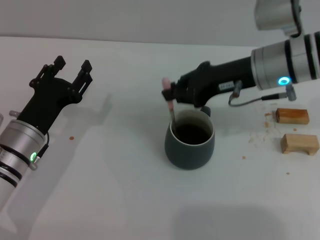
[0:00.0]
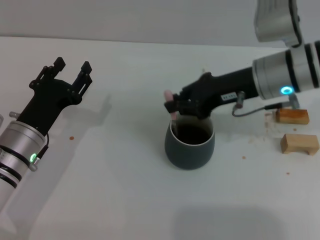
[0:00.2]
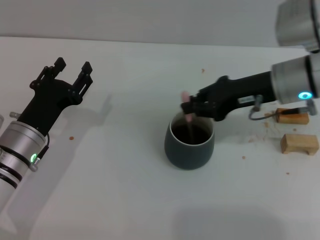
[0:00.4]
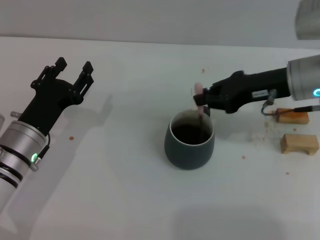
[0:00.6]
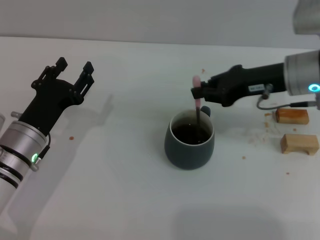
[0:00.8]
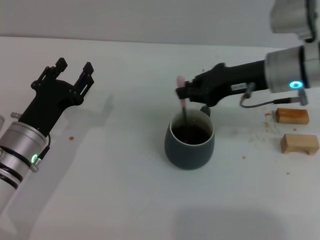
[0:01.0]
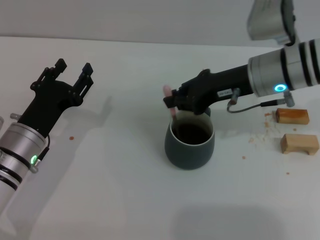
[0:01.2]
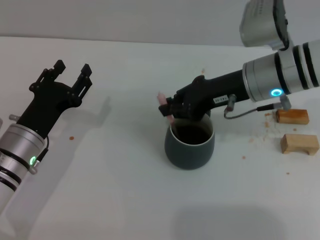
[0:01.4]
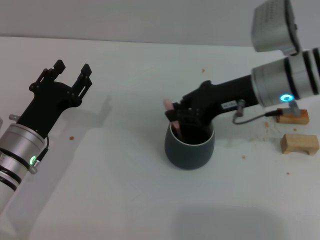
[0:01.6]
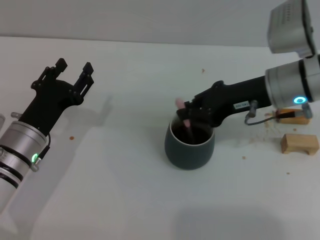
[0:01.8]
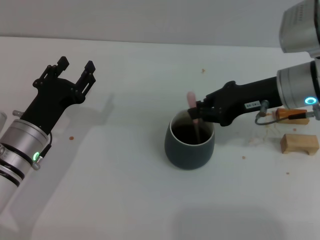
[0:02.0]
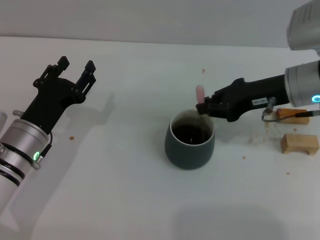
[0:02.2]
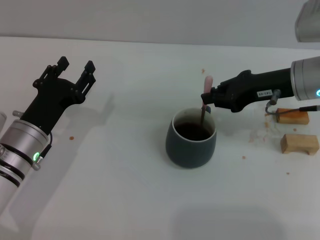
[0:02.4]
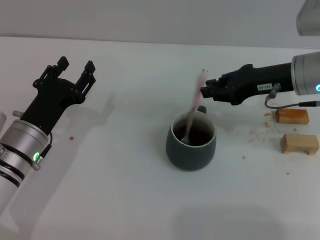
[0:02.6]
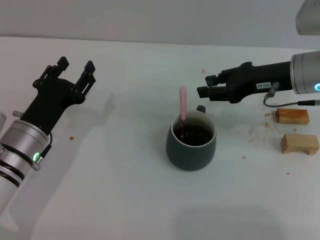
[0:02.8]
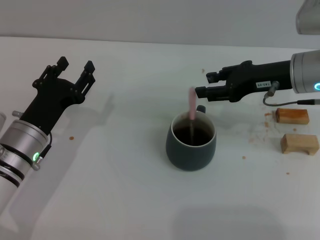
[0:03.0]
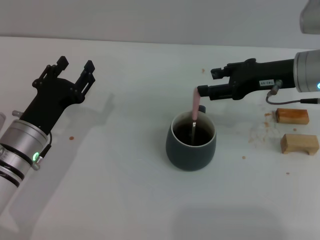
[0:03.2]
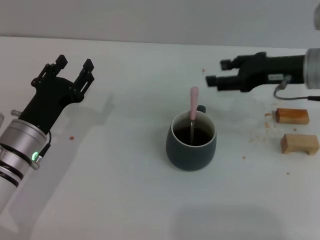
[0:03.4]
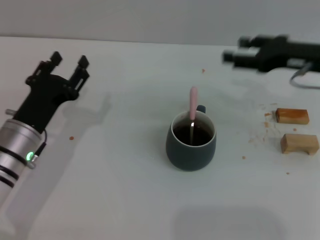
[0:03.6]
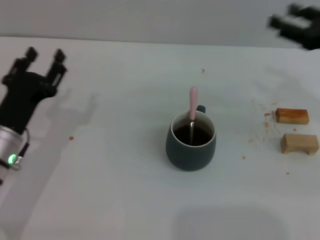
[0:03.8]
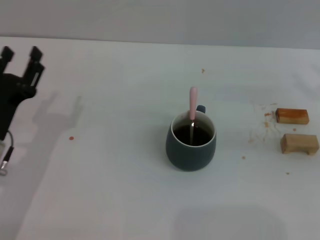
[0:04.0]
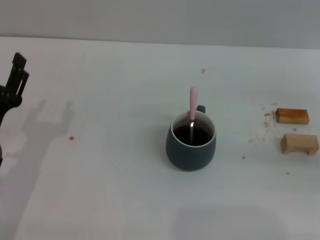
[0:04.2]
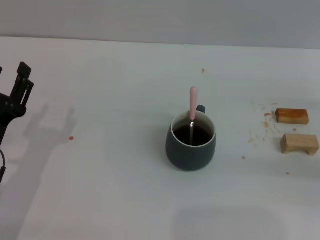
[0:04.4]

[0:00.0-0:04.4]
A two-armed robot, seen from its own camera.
Task of the whole recording: Move the grey cup to the center, lift the pink spoon, stir it three times in the cup, and put the spoon into the cup.
Step, 0:00.0 to 0:03.2: Stir the coffee in the cup with the right gripper.
0:00.0 to 0:01.4: The grippers stay close to where they were, moving slightly.
0:01.4 to 0:03.0: The right gripper travels to the right by about 5 cm, and opens its fingers.
0:03.0 to 0:04.4: The right gripper moves to the right and backward, about 20 cm, and opens its fingers. The left gripper is displaced backward by about 5 cm.

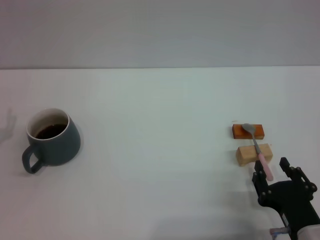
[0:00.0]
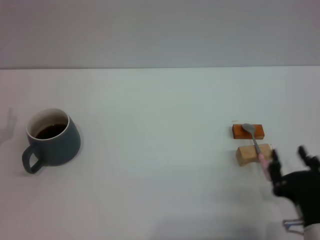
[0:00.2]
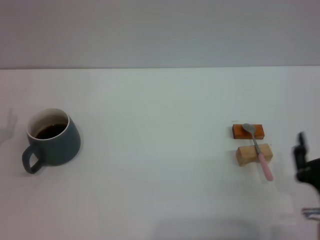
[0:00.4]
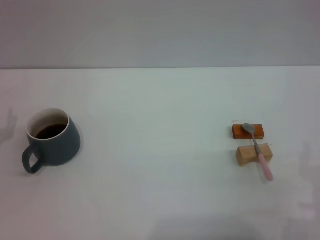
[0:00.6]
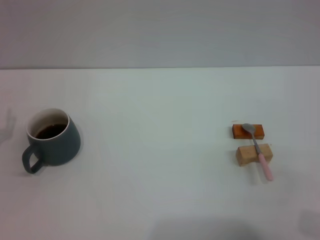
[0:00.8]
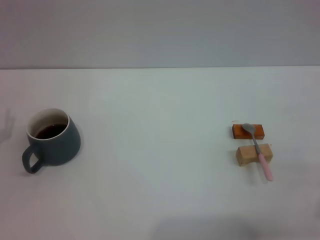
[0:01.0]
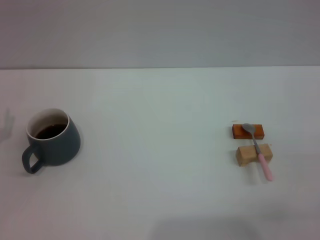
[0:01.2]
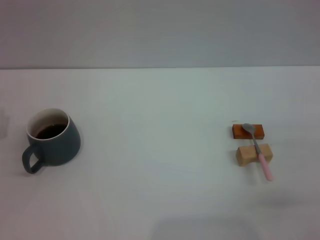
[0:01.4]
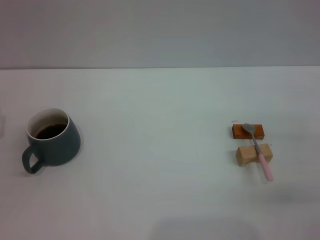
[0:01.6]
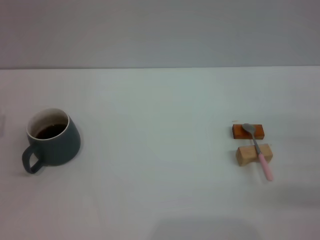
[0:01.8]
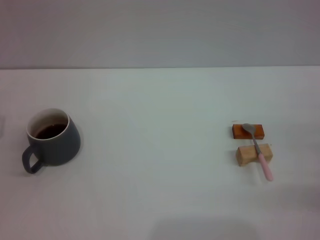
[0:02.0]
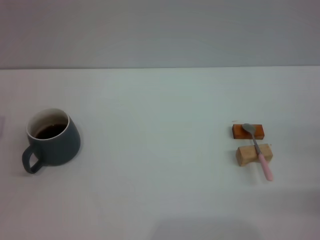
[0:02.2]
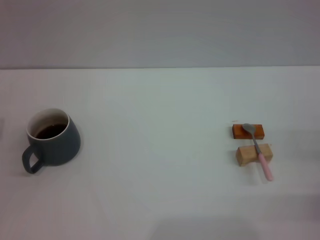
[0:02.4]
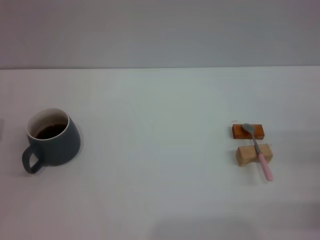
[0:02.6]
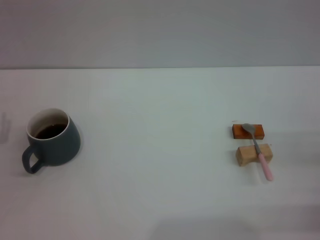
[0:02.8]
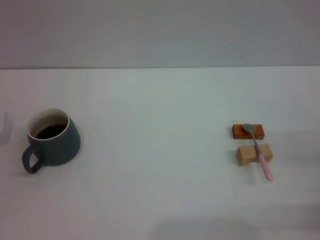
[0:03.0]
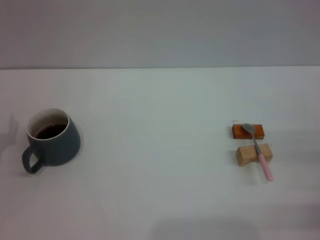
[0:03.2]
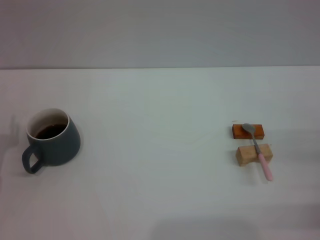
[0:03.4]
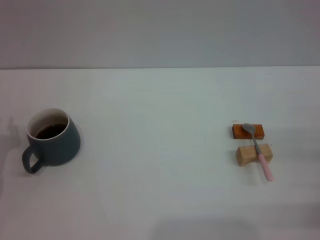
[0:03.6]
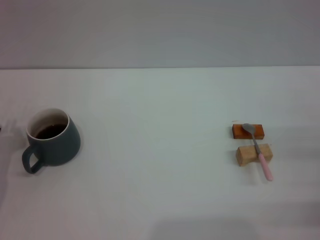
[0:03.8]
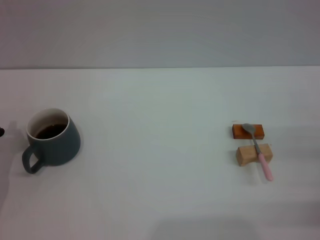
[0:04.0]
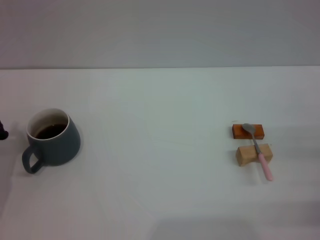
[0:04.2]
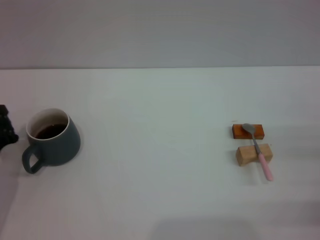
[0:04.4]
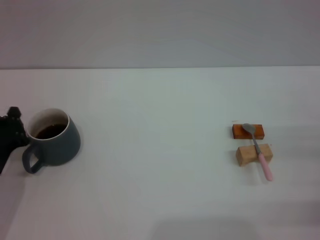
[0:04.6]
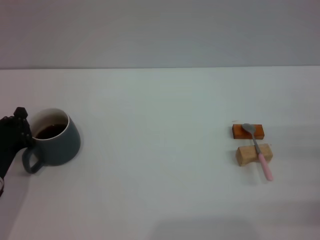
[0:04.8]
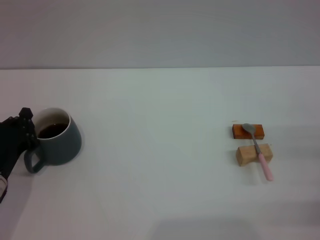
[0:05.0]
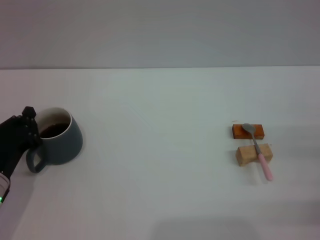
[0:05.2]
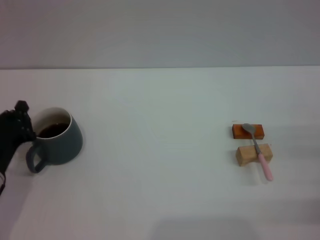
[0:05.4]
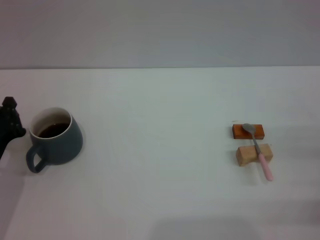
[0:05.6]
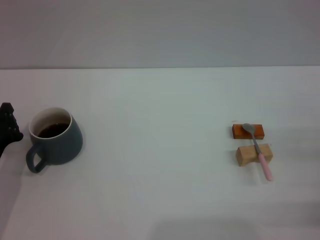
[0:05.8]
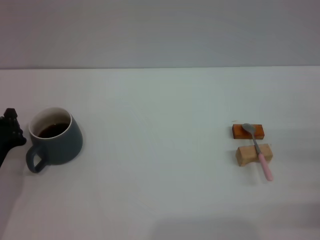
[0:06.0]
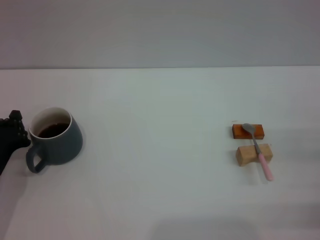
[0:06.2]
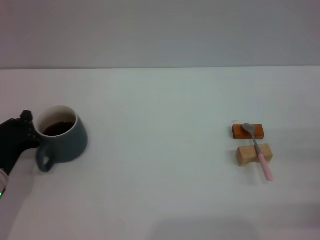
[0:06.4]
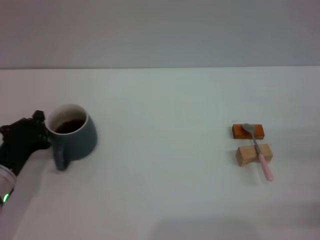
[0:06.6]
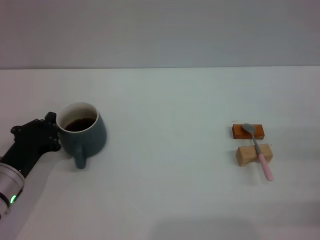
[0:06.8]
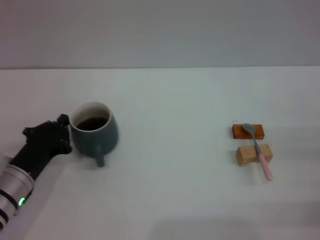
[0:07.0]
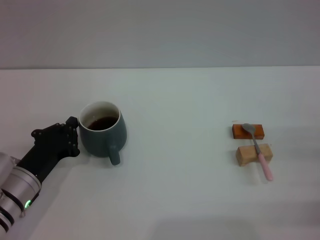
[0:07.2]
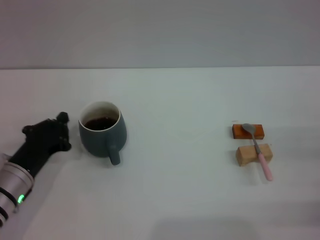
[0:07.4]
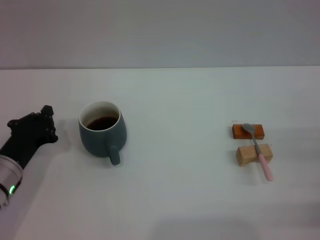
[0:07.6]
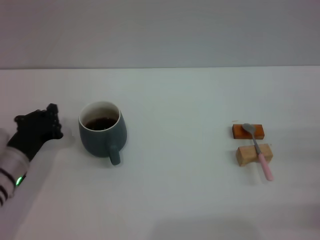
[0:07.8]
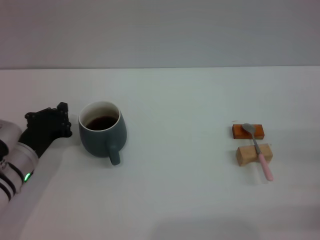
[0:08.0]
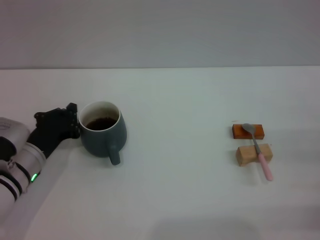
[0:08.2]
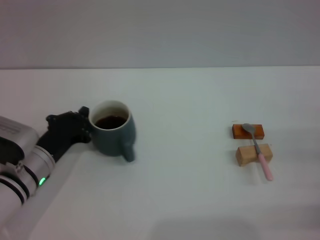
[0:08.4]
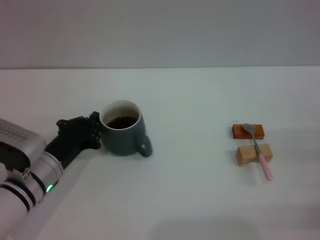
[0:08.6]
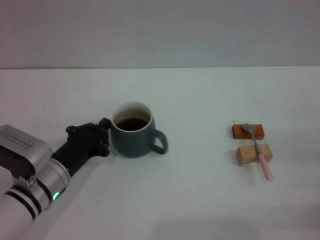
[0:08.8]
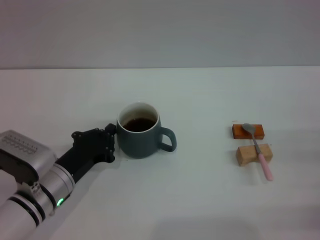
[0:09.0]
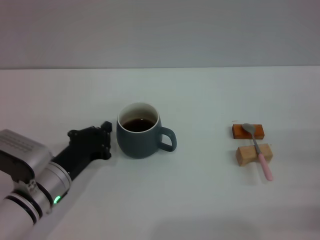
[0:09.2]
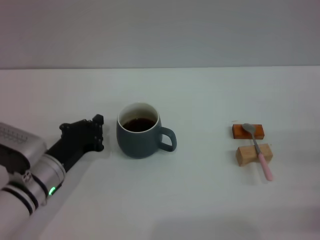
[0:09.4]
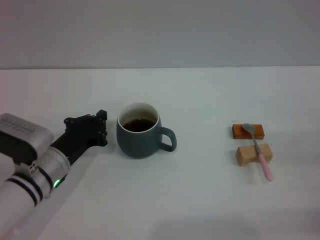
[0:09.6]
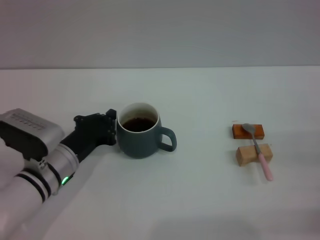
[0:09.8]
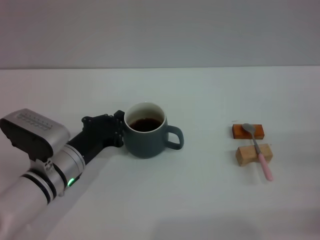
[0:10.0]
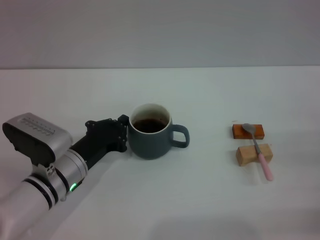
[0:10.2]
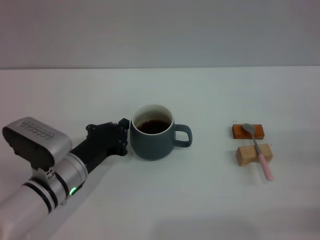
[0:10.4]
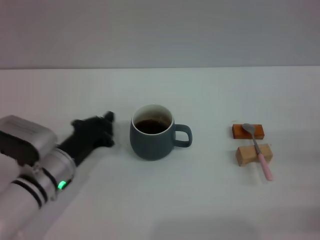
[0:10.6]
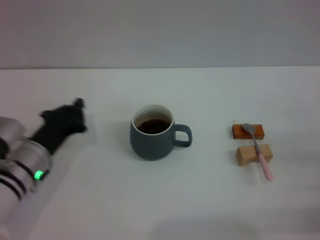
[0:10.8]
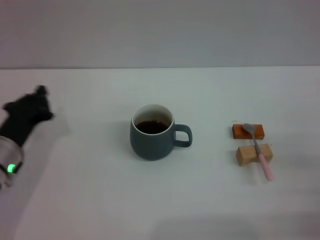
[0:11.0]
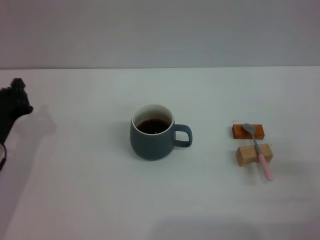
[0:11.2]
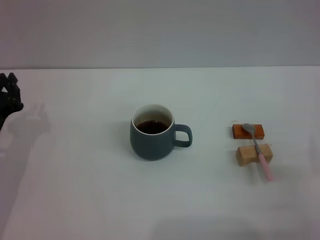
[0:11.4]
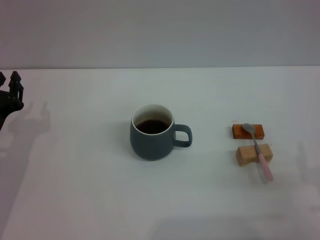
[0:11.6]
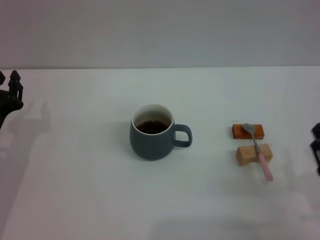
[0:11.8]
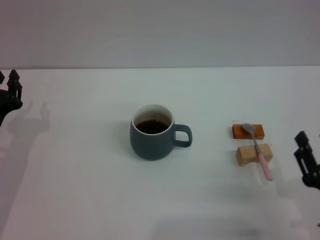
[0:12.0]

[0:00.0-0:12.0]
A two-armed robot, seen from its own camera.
Task of the whole recording: Move the grey cup to the center, lift the pink spoon, stir it three times in the cup, and put the spoon into the cup.
Step, 0:00.0 to 0:10.4: Move the cup with coffee to the center of view with the left gripper.
0:00.0 to 0:01.6: The right gripper travels to the right, forward and upward by some 20 cm.
0:03.0 to 0:04.4: The left gripper closes its fingers.
0:04.4 to 0:06.0: The grippers stay close to where they were, moving slightly.
0:06.0 to 0:07.6: The grippers make only small movements.
0:07.6 to 0:09.0: The left gripper moves to the right, about 5 cm.
0:09.0 to 0:10.4: There are only small adjustments of the grippers.
0:10.4 to 0:12.0: The right gripper heads to the left and backward, covering some 15 cm, while the left gripper goes approximately 10 cm to the left.

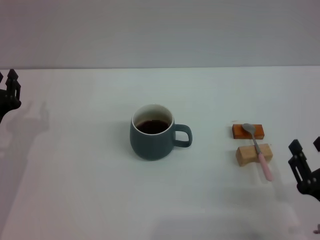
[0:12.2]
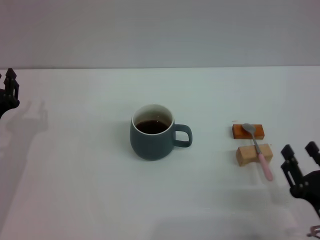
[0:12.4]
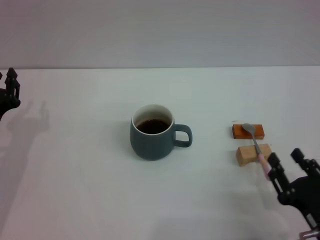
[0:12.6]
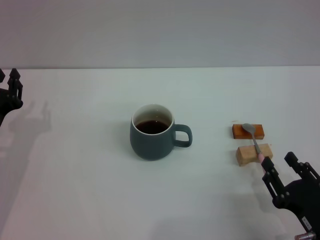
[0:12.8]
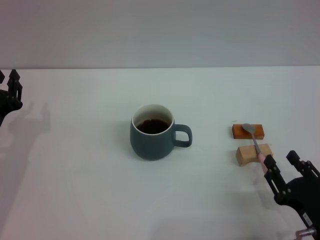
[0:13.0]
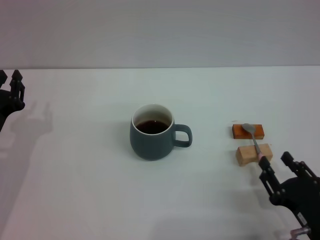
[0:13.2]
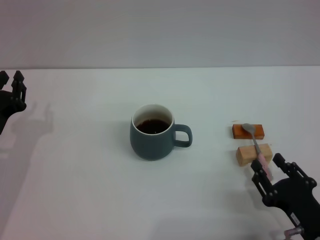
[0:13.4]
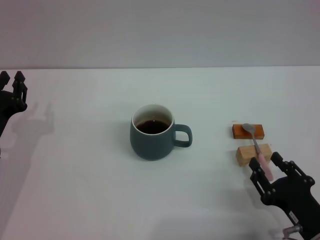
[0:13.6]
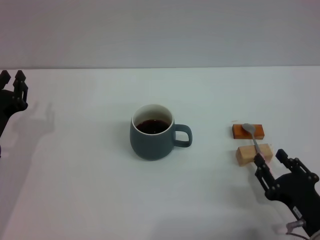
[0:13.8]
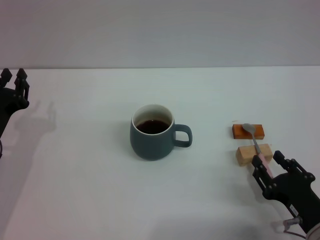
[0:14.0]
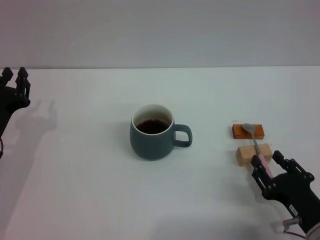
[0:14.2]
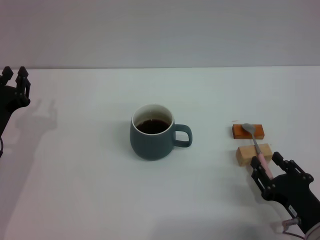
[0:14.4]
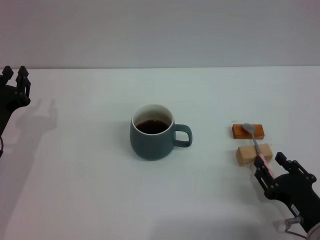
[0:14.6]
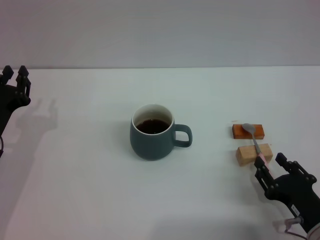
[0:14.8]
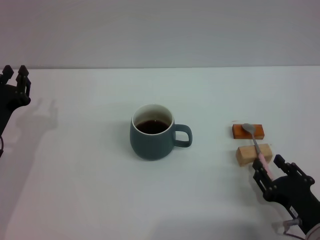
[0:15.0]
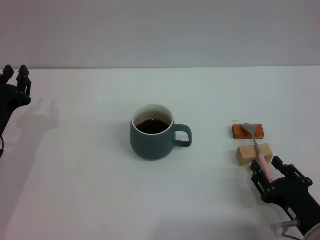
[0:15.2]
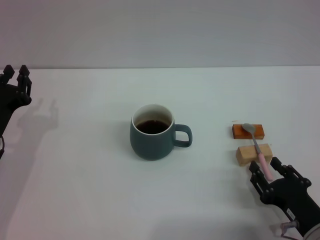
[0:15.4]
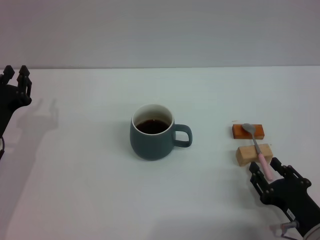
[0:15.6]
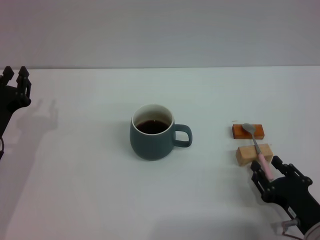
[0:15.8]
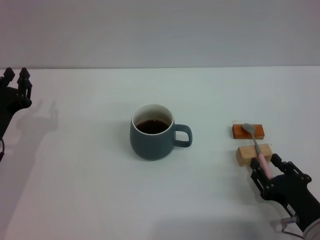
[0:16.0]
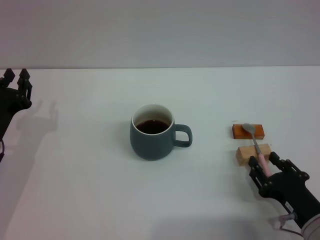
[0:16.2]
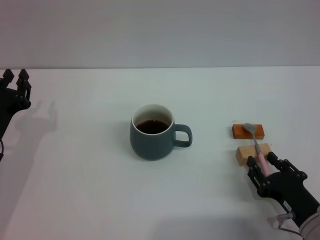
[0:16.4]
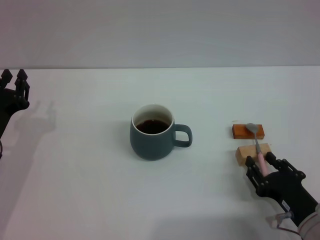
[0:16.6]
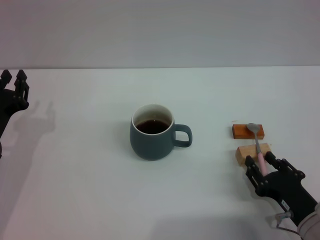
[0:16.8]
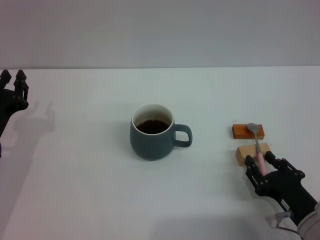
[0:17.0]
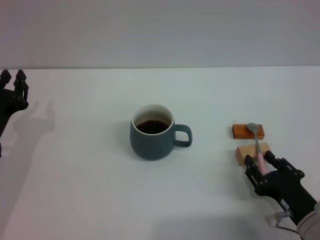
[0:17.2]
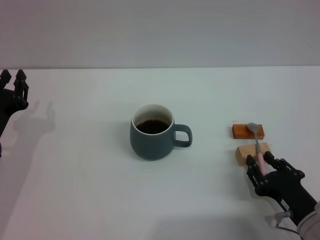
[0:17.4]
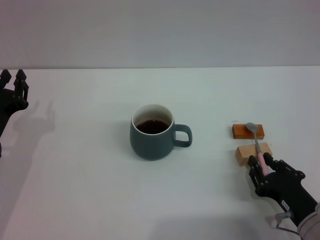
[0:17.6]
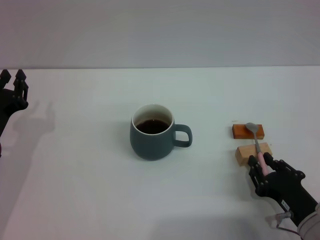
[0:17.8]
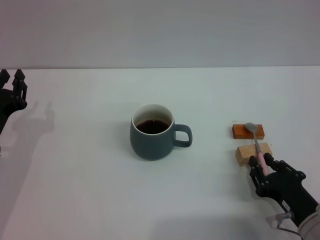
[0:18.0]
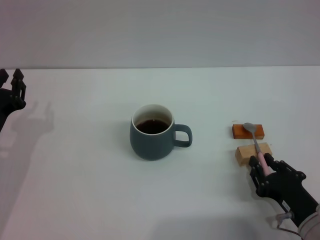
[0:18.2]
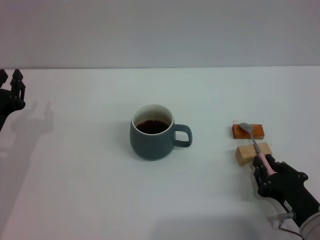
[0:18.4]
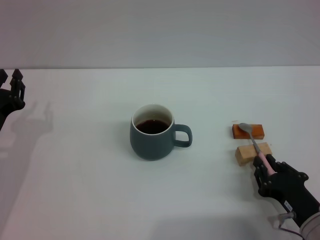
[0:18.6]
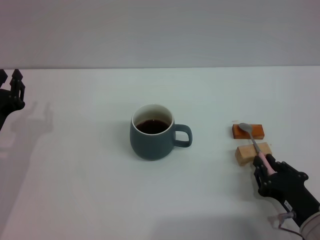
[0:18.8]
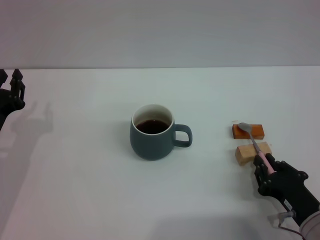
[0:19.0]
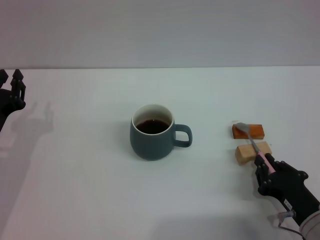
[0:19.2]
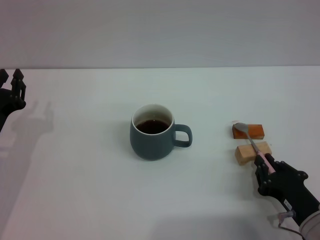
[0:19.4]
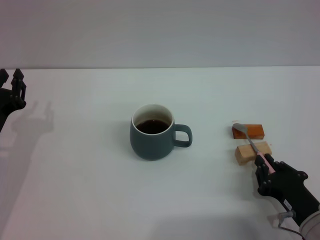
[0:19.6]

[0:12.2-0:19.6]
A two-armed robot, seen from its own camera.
Task of the whole recording: Move the grey cup to the center, lift the pink spoon, stir it three times in the cup, and put the spoon into the cup.
0:12.2 to 0:15.2: The grippers move only a little.
0:15.2 to 0:16.6: There are only small adjustments of the grippers.
0:18.2 to 0:19.6: The right gripper closes.
